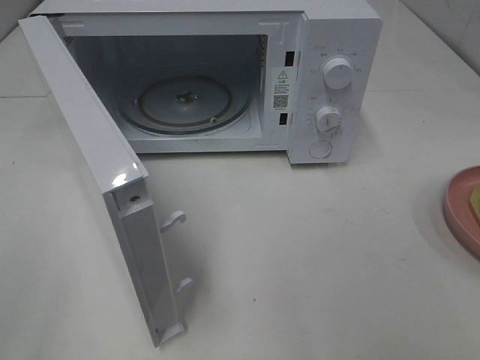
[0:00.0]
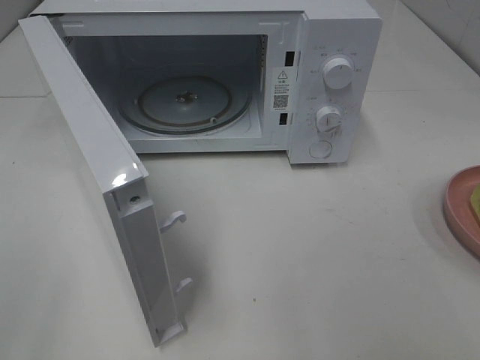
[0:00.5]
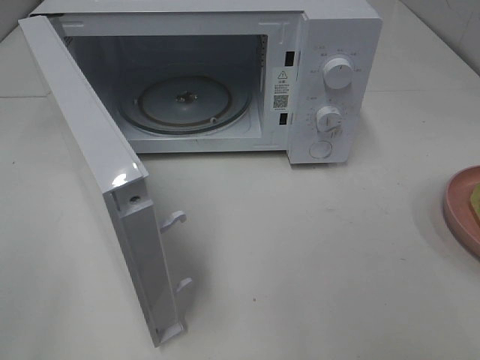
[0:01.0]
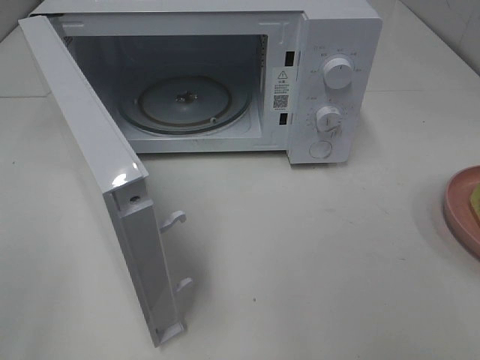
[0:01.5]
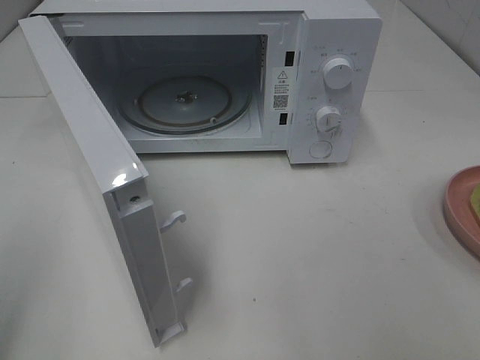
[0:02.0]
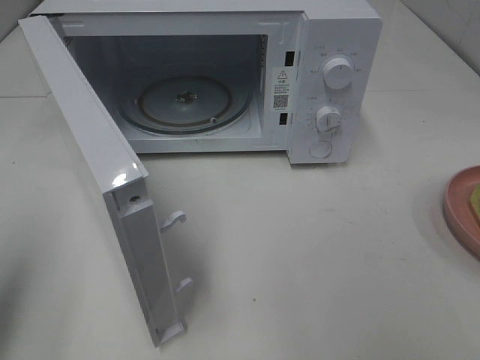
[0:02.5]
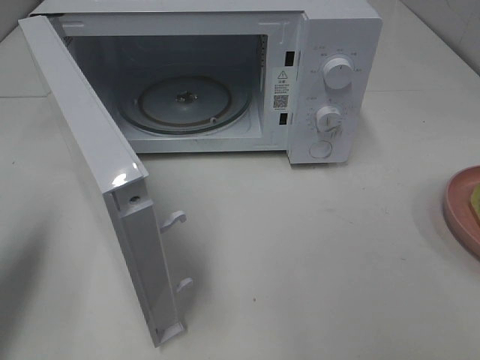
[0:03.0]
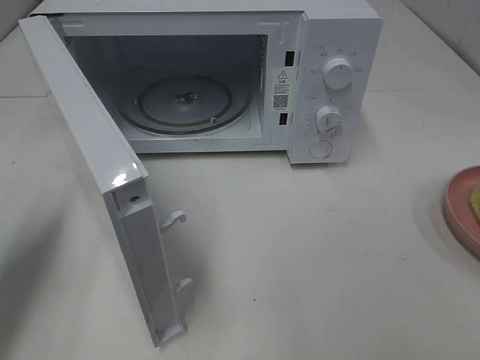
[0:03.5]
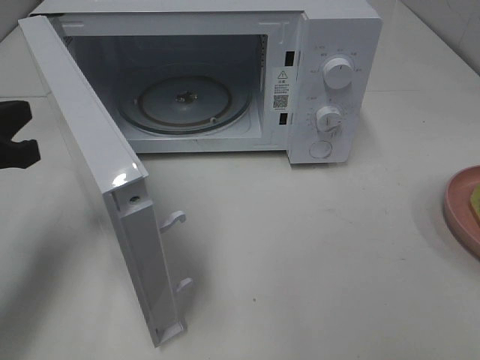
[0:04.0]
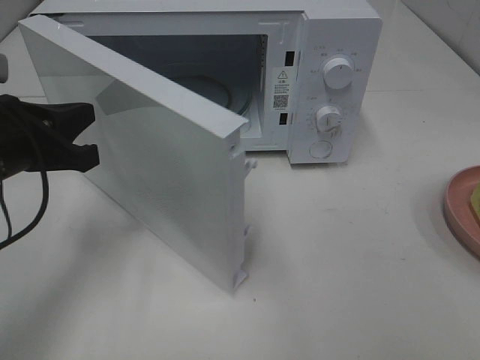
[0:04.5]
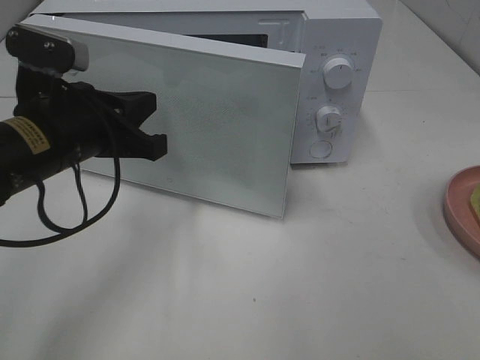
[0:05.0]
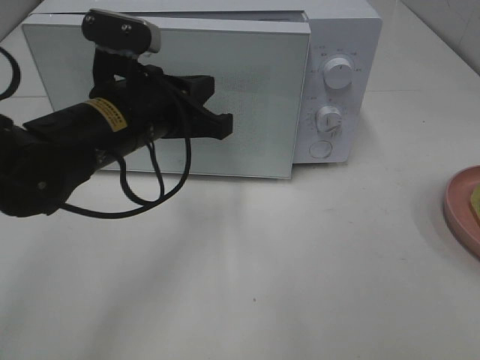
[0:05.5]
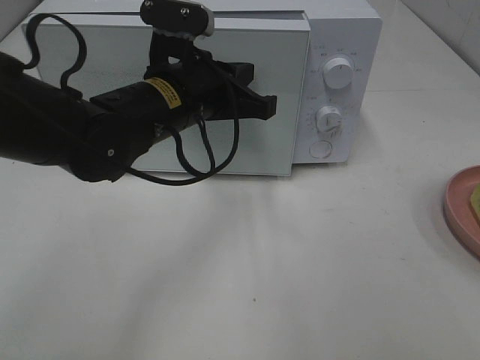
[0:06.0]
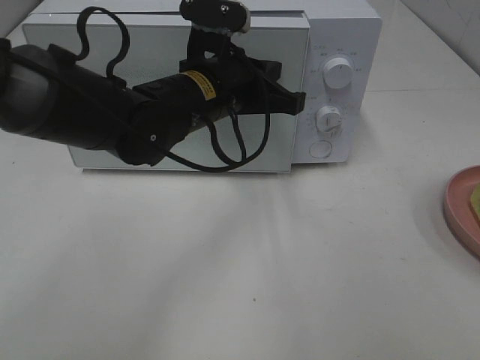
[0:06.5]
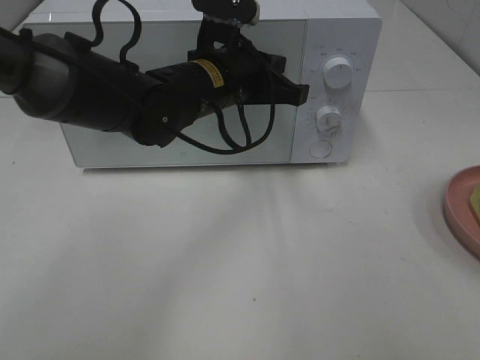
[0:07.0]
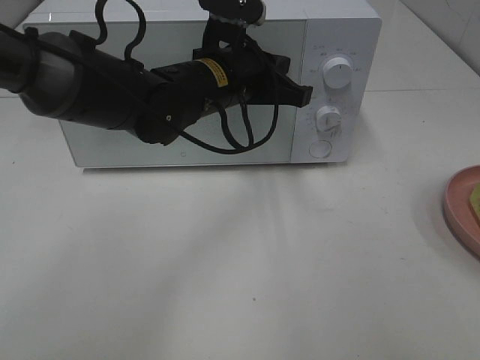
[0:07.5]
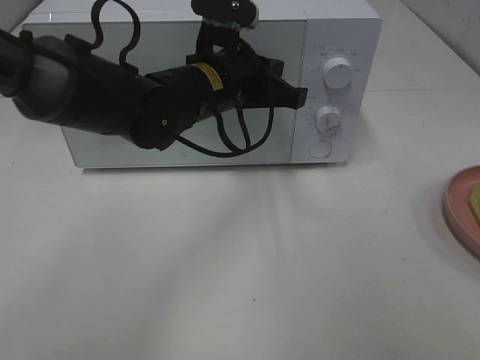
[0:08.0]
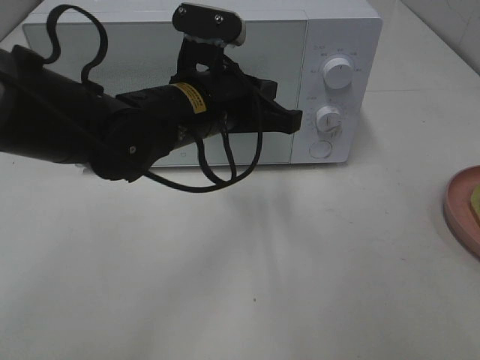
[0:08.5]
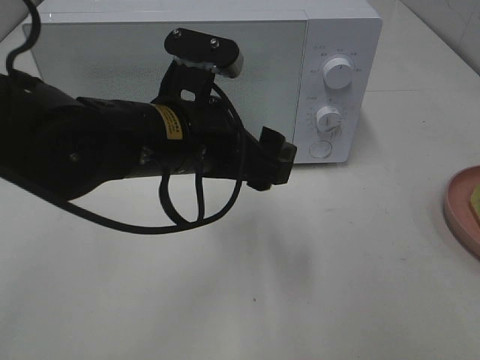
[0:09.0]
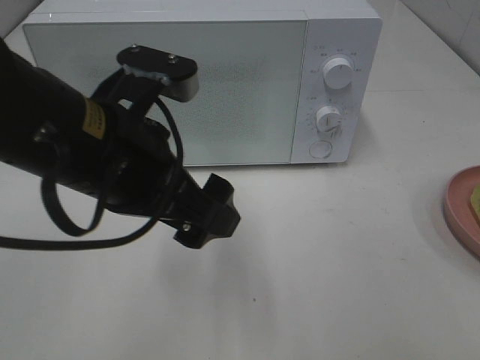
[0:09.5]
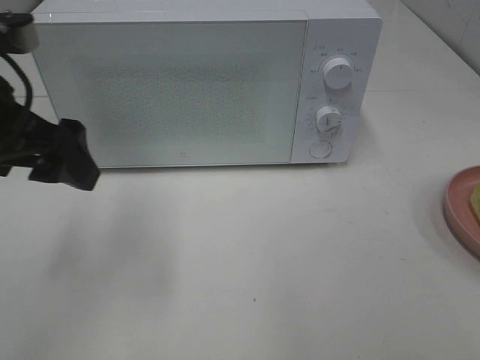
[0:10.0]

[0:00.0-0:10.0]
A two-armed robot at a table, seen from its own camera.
Task of the whole recording: Heat Sandwich.
Step, 0:00.0 to 0:08.5: Left hand: close the microwave door.
0:02.0 to 0:04.0: The left gripper travels forward and downward by about 20 cm.
0:04.0 to 0:06.0: The left gripper heads to the right, covering some 20 cm.
0:06.0 to 0:08.0: The left gripper moves roughly 5 cm.
0:08.0 to 0:10.0: The left gripper moves to the left, backward and upward, roughly 25 cm, and opens.

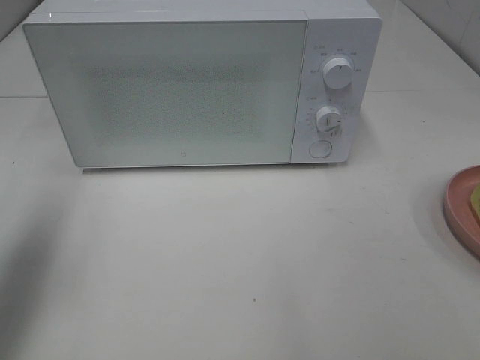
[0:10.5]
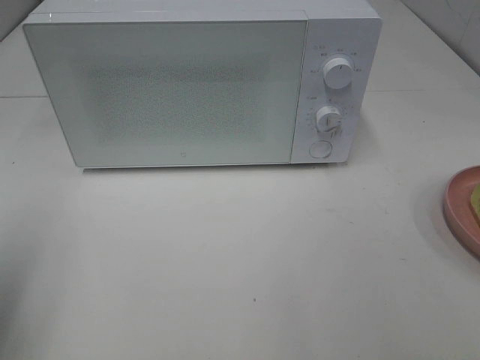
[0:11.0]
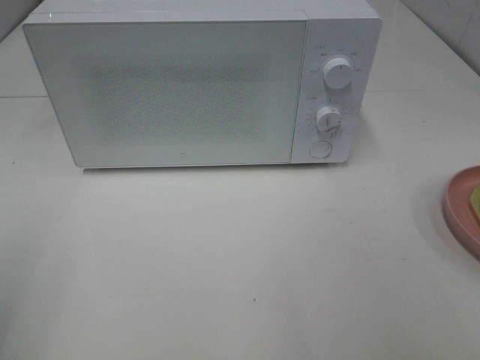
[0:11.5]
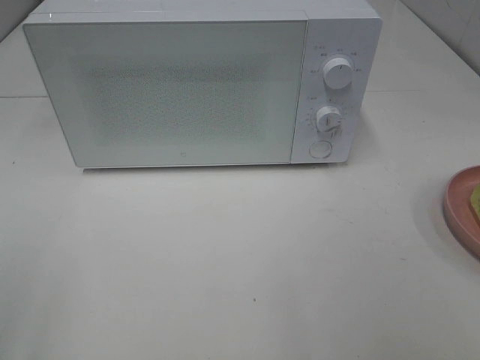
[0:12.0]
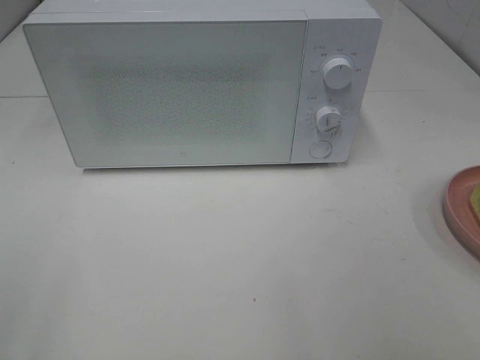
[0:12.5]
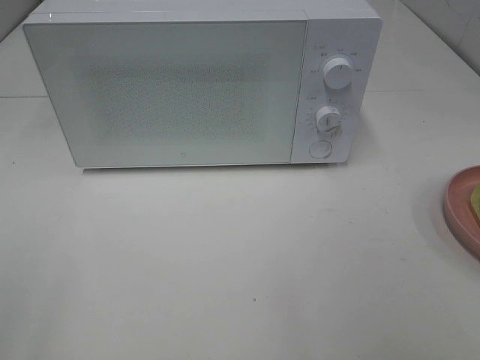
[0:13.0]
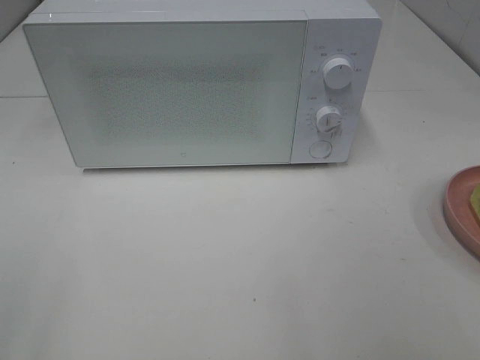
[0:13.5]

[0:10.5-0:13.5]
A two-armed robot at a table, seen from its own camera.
Task of the whole recording: Heat Sandwich.
0:10.5 to 0:12.0: The left gripper heads backward, covering roughly 20 cm.
